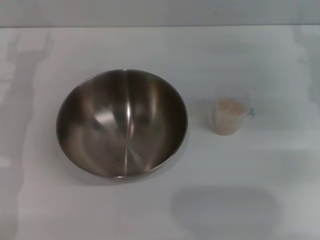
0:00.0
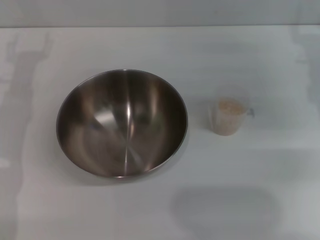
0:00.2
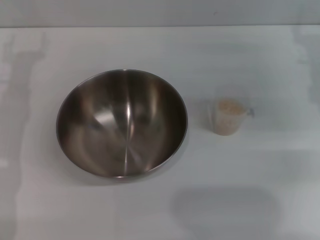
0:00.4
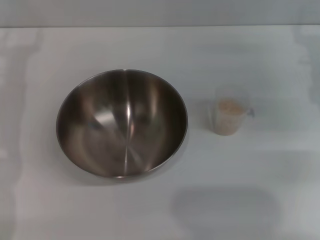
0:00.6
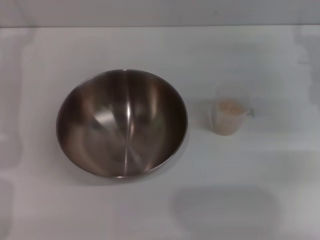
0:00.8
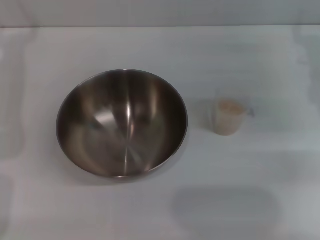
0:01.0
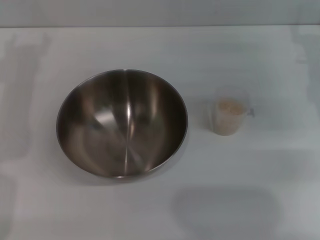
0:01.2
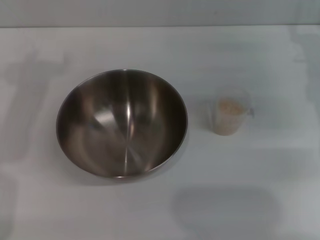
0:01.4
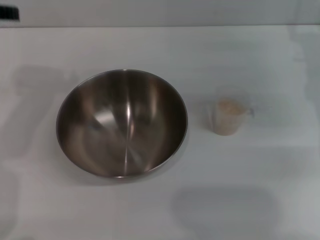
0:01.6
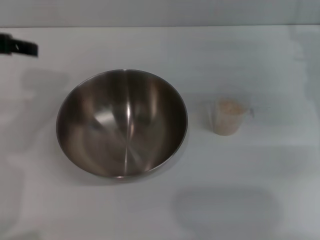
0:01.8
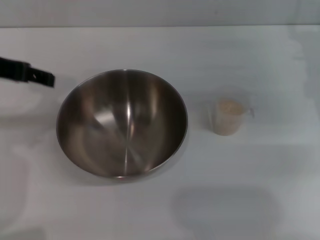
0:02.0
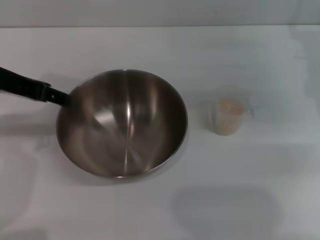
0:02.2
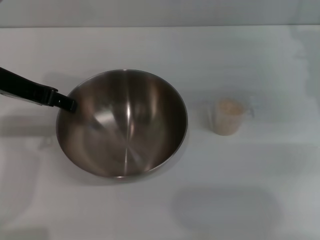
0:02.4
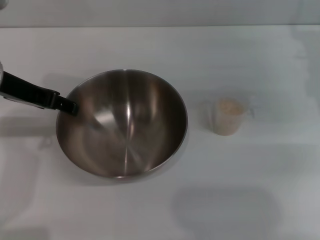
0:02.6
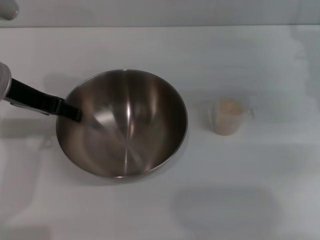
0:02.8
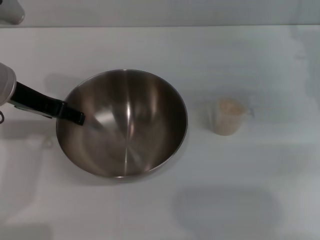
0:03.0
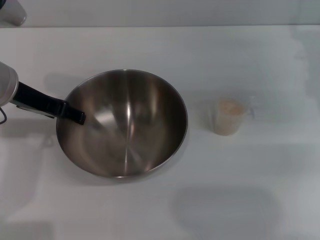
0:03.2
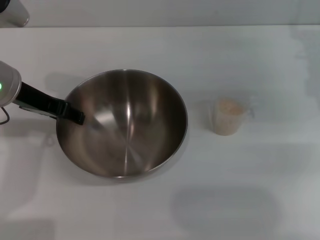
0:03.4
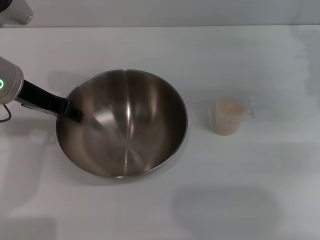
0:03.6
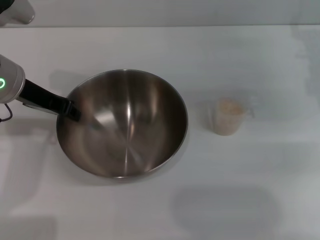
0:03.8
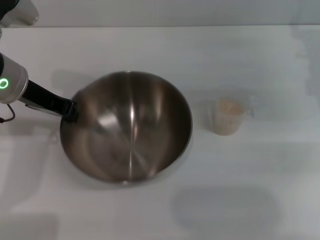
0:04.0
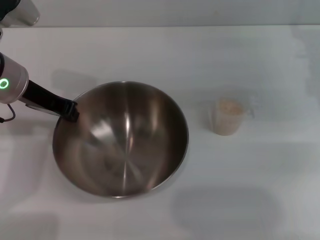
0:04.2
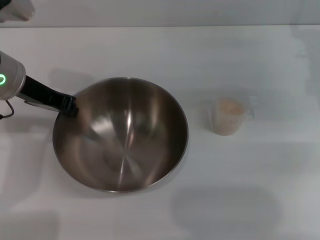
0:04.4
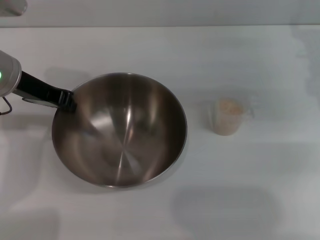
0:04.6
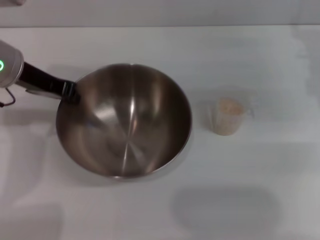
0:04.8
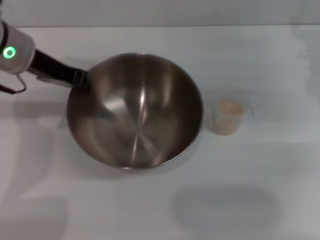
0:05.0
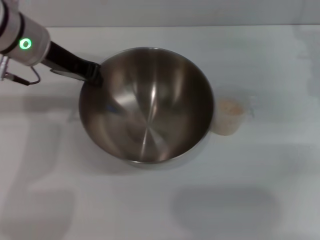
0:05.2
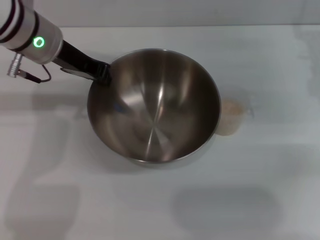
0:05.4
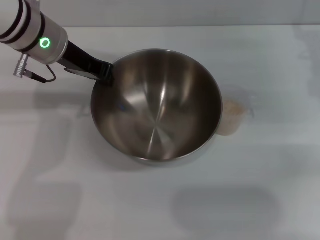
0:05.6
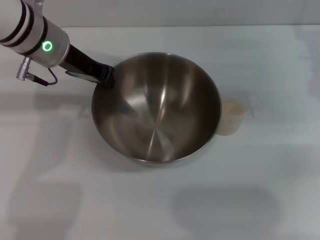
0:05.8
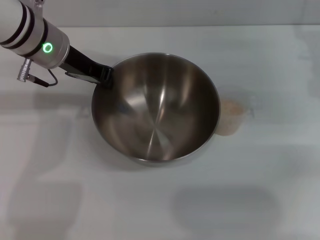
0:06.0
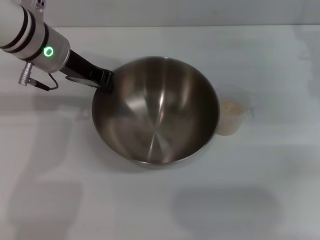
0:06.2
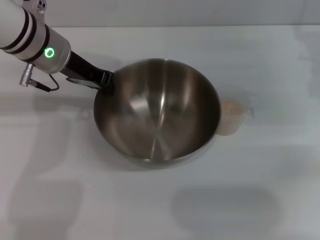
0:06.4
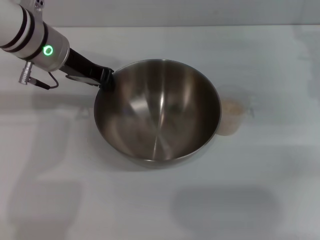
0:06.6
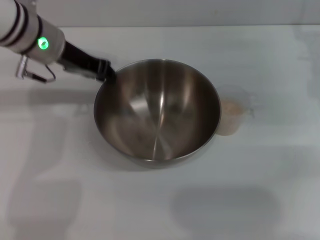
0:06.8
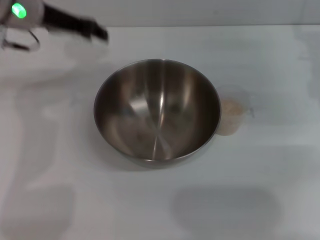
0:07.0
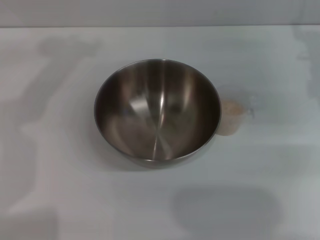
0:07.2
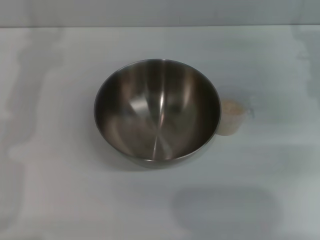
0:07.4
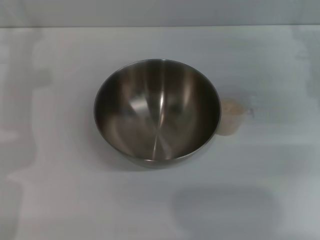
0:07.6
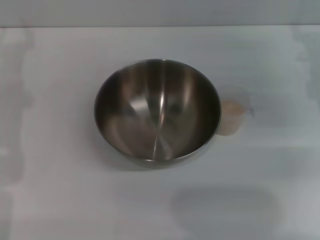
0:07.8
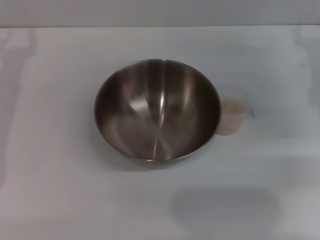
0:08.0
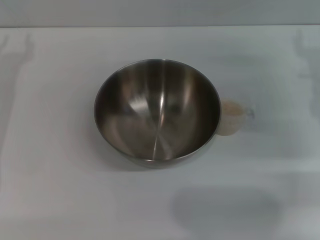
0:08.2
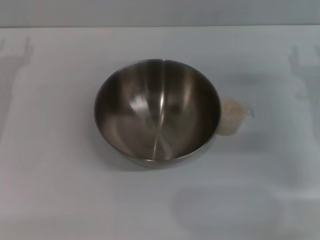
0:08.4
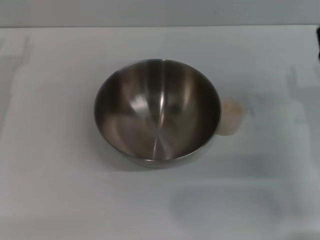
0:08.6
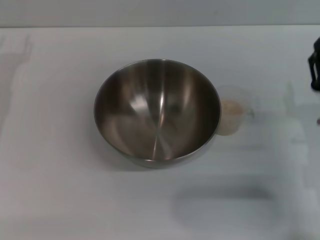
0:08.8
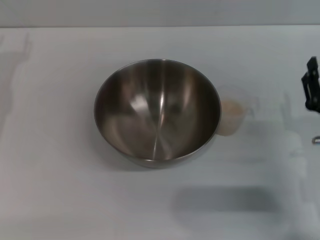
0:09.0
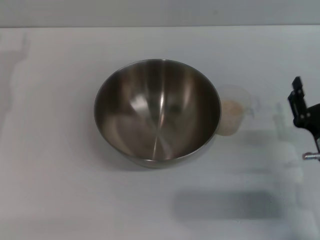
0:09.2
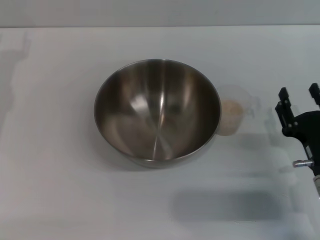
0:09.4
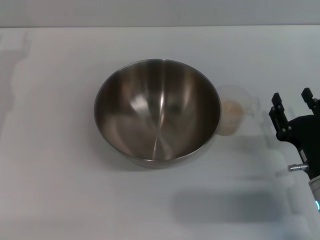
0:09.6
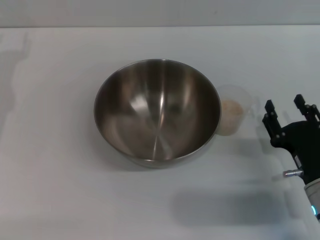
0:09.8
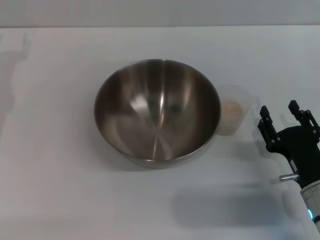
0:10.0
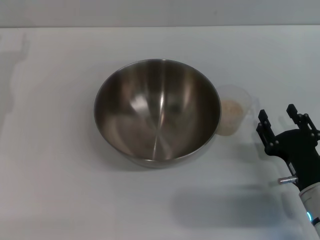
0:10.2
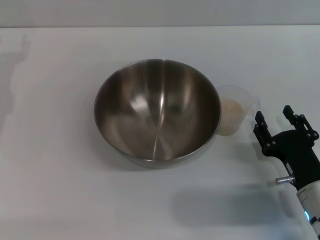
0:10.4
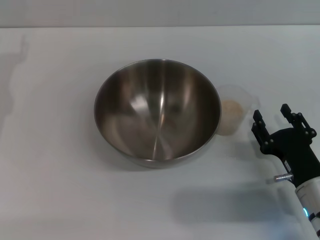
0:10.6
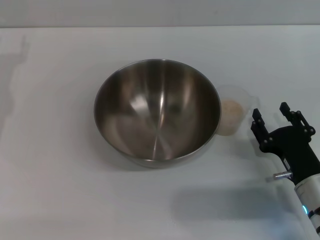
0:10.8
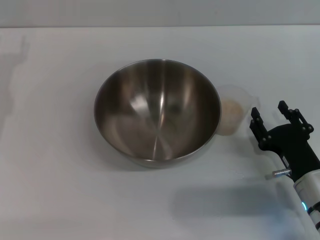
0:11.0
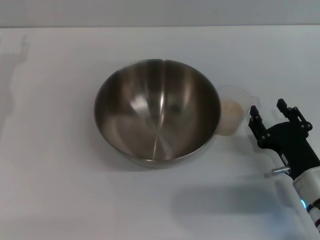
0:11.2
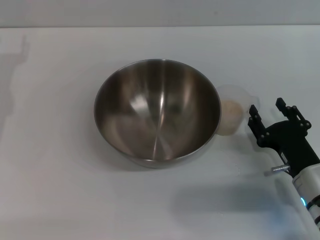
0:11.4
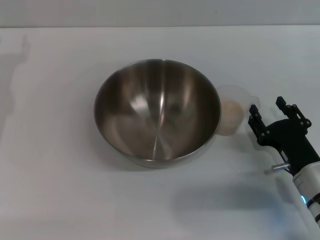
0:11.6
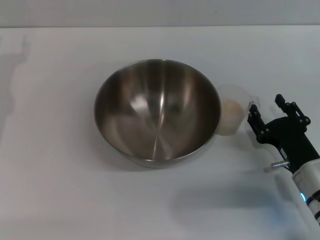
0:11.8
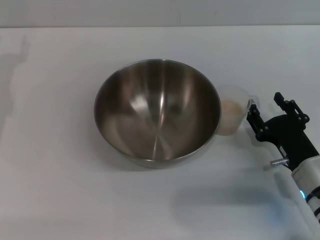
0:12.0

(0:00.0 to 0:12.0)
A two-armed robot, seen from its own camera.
Task of the whole recording: Place the bowl in the middle of the table with one hand and pour the rice from the grain cup into it with the other hand.
Step, 0:00.0 - 0:05.0: Pick up the bowl with the left gripper.
Step, 0:05.2 - 0:06.8: Place the bowl in the center of view with the left gripper.
0:00.0 - 0:01.6: The left gripper is displaced upward by approximately 15 cm.
0:01.6 - 0:03.0: The left gripper travels downward by some 10 cm.
0:03.0 - 0:04.4: The left gripper closes.
0:04.4 - 0:06.0: The left gripper goes about 5 cm to the right.
0:06.0 - 0:07.6: The left gripper is displaced to the left by about 10 cm, and opens its fingers.
0:07.6 - 0:09.0: The right gripper travels backward and downward by about 20 cm.
0:09.0 - 0:10.4: The right gripper moves approximately 5 cm.
0:10.4 - 0:12.0: The grippers move only a little.

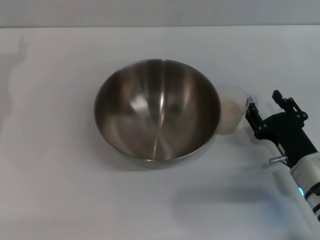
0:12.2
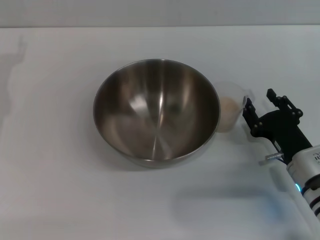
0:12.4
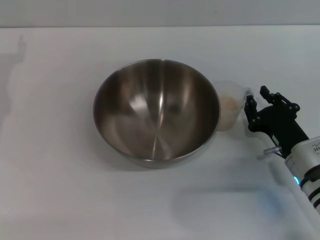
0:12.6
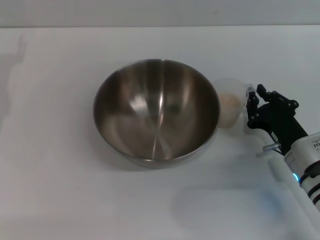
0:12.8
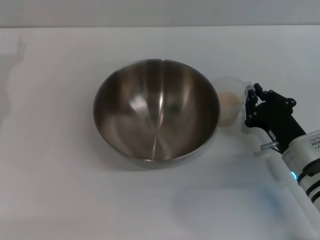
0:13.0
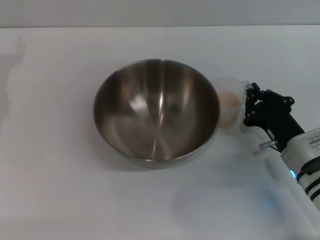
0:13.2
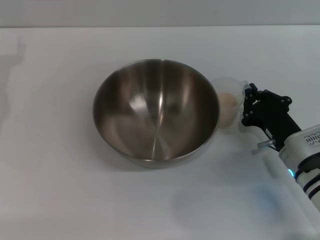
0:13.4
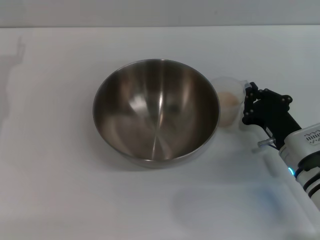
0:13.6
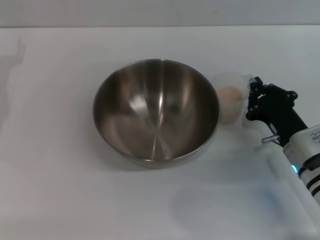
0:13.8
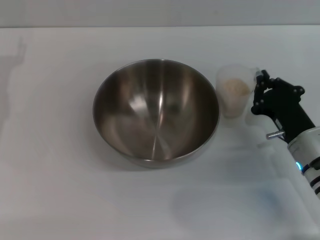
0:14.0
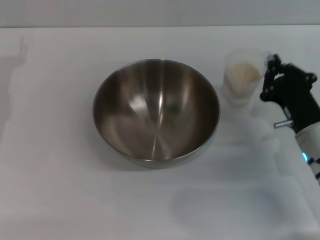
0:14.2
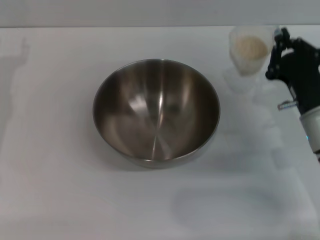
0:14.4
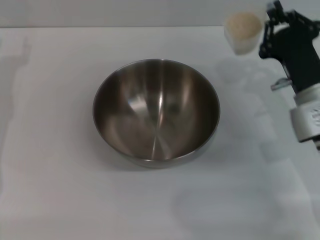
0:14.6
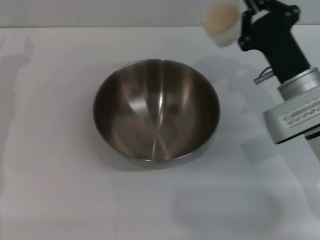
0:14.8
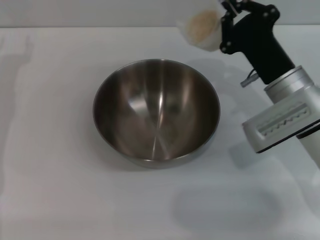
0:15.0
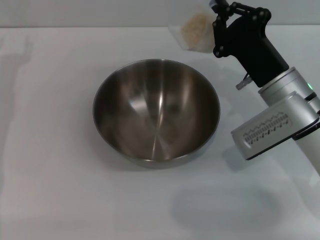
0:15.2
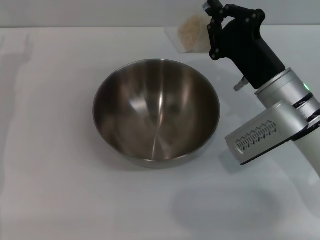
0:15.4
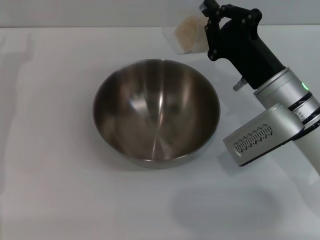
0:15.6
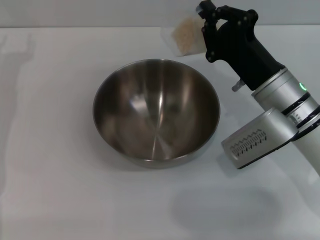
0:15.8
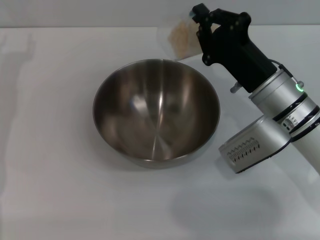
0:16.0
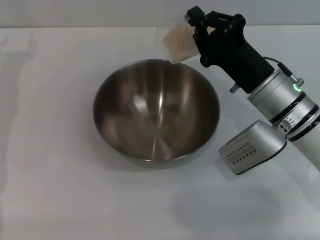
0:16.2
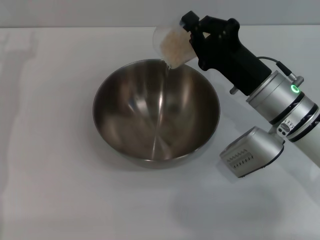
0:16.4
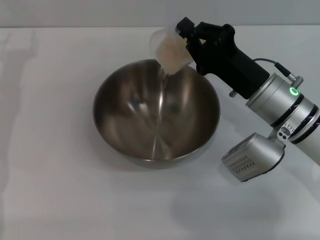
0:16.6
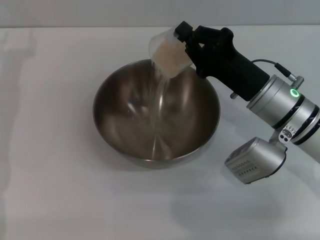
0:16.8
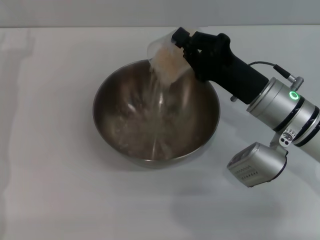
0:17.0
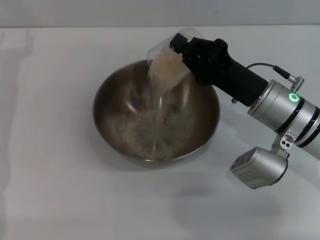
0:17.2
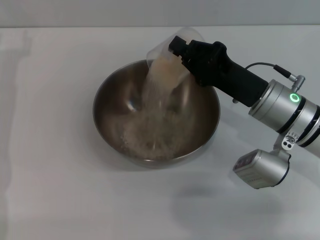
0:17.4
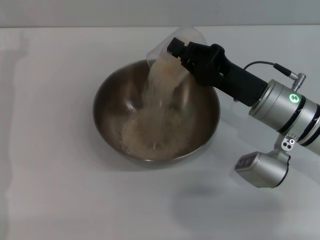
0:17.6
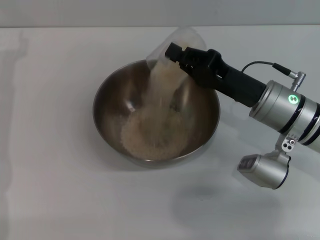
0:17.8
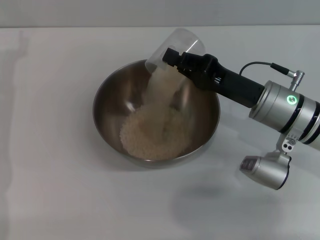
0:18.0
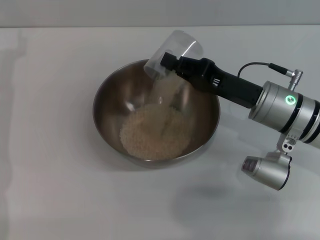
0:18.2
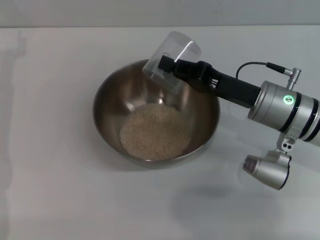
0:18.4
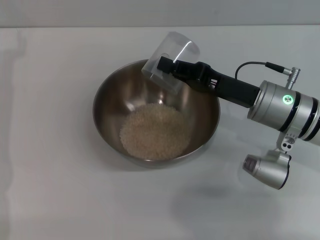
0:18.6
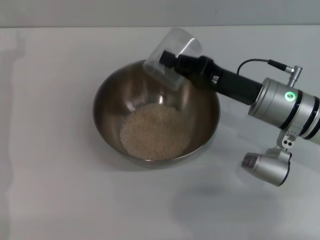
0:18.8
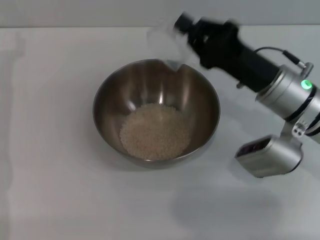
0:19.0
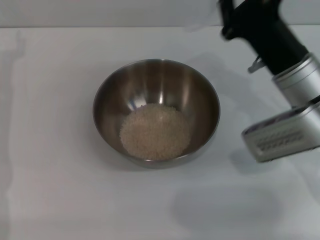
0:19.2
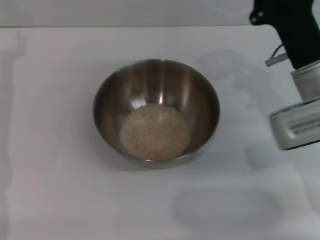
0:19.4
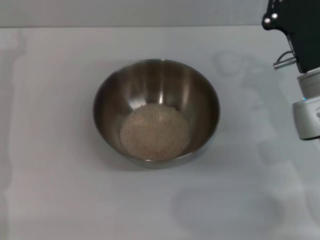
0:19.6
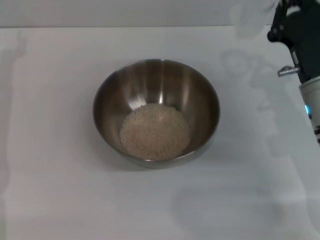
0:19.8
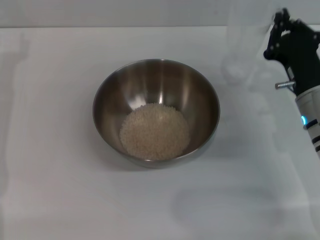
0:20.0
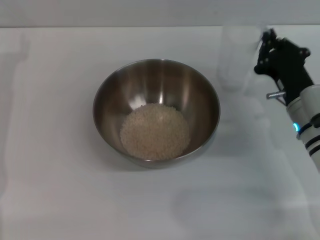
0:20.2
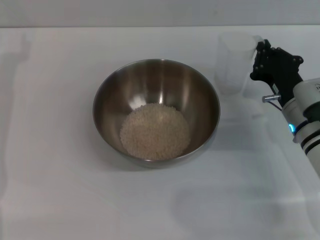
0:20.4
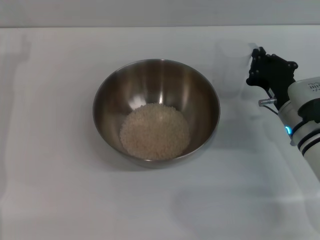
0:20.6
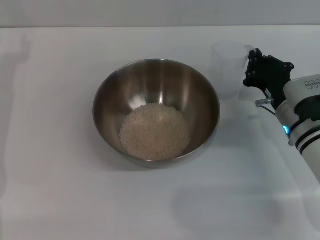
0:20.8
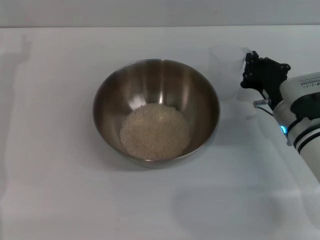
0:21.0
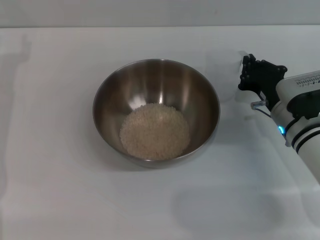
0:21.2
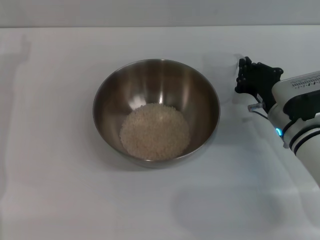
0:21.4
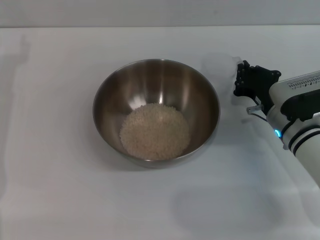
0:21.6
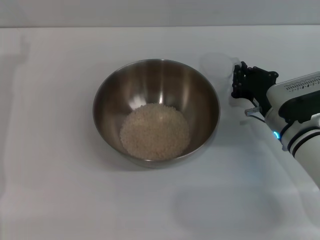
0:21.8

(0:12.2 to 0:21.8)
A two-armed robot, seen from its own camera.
Task of the whole recording: Place the bowl in the middle of the table with one hand and pour the rice from the grain cup into it with the other hand.
Step, 0:12.2 - 0:14.2: Pick up the cup with rice in it with the right gripper.
Step, 0:14.4 - 0:18.8: Pour the rice from the cup into the bowl with the right gripper.
0:12.2 - 0:13.8: The right gripper closes.
0:13.8 - 0:15.4: The right gripper heads upward and forward, covering some 10 cm.
0:18.6 - 0:20.2: The right gripper shifts by approximately 5 cm.
0:20.2 - 0:21.8: There are only small adjustments of the grippers.
